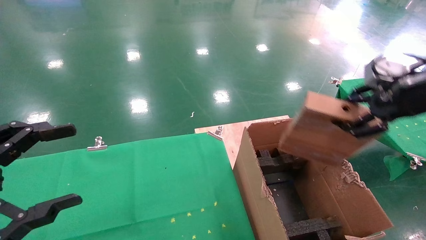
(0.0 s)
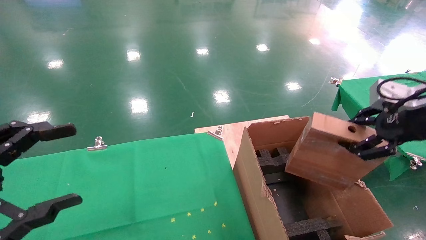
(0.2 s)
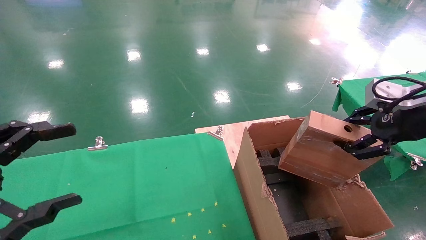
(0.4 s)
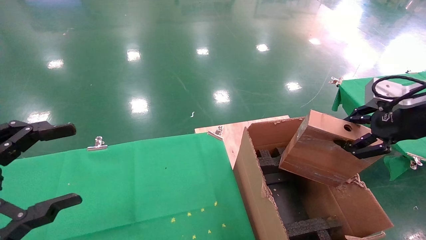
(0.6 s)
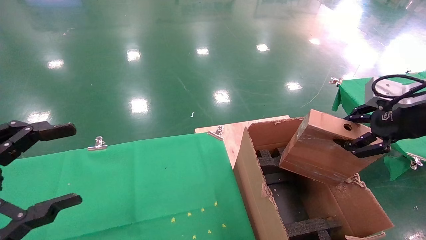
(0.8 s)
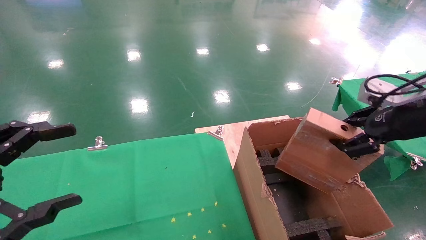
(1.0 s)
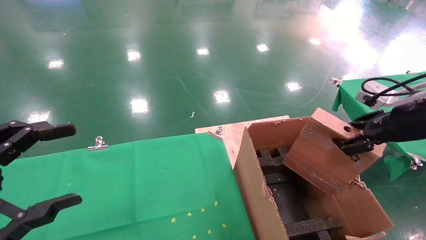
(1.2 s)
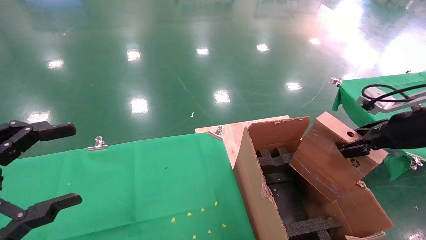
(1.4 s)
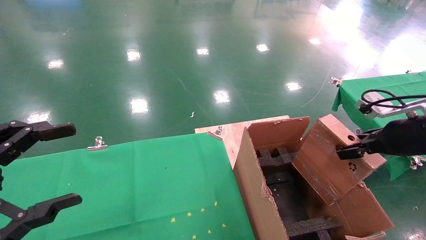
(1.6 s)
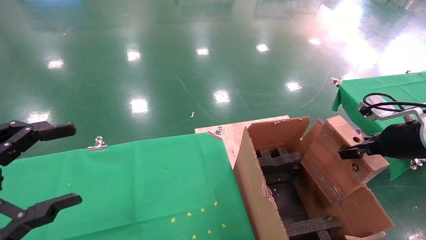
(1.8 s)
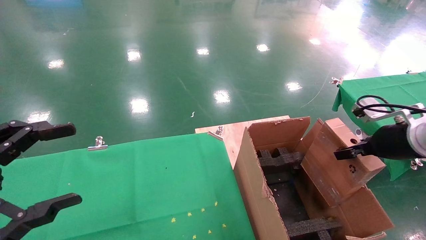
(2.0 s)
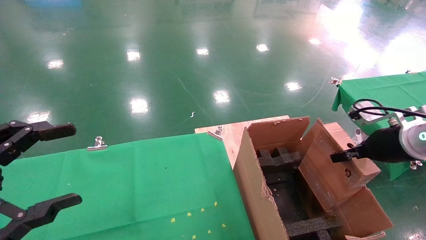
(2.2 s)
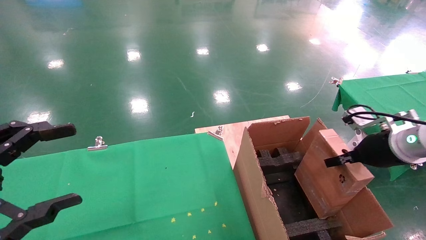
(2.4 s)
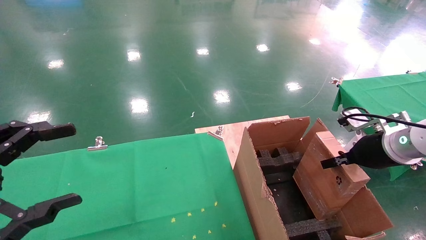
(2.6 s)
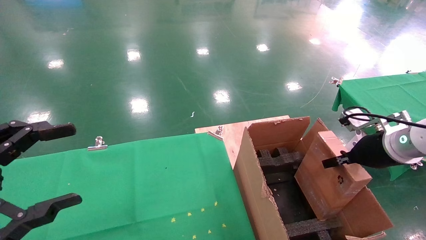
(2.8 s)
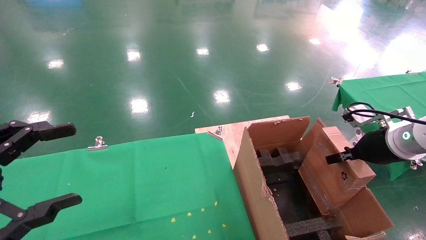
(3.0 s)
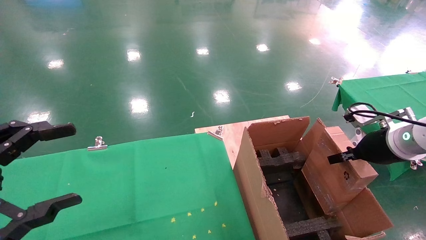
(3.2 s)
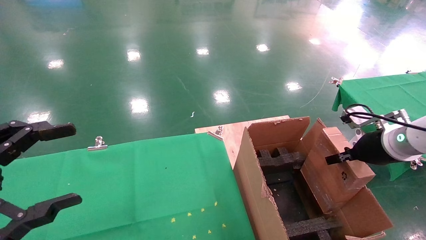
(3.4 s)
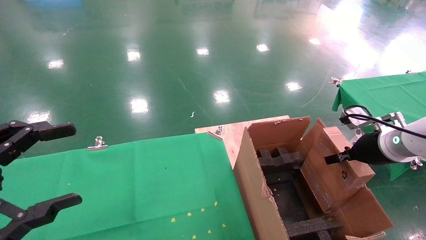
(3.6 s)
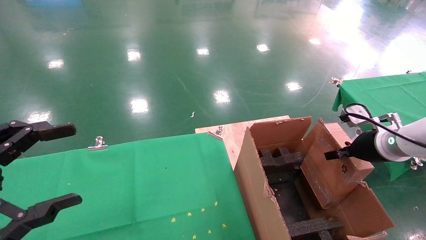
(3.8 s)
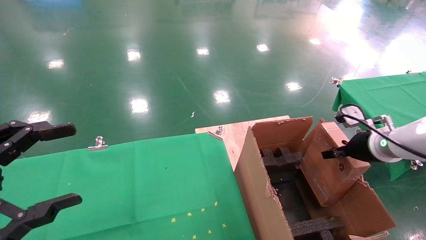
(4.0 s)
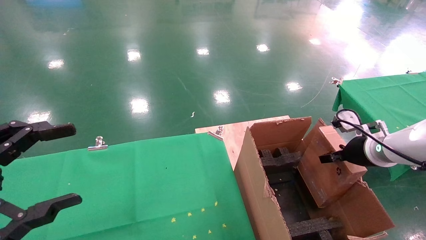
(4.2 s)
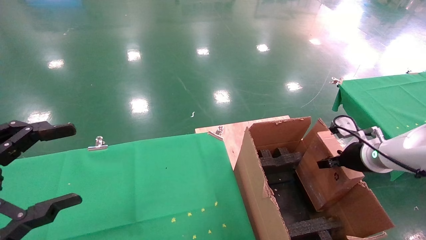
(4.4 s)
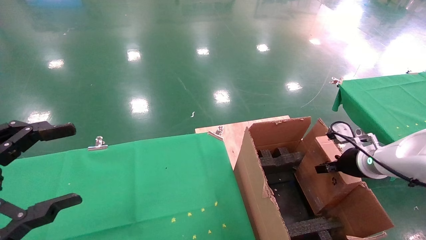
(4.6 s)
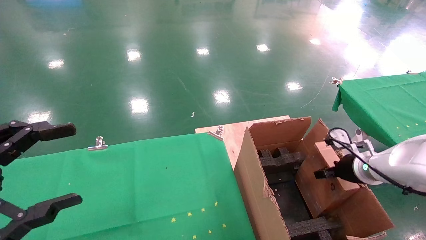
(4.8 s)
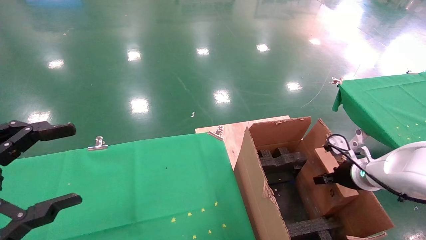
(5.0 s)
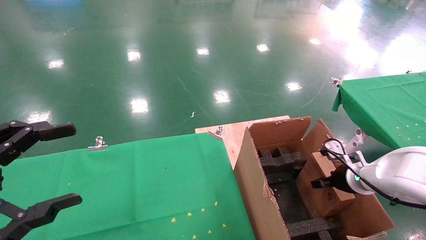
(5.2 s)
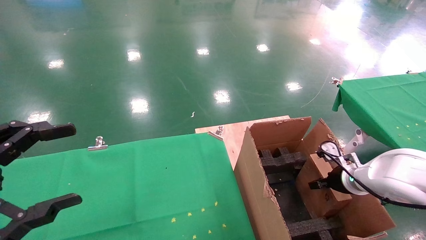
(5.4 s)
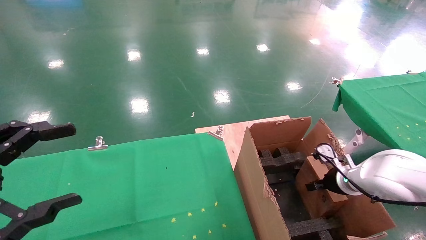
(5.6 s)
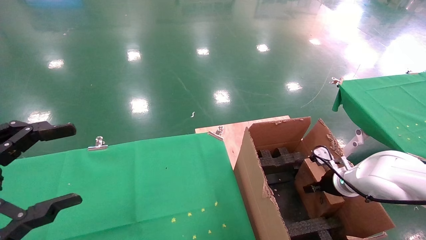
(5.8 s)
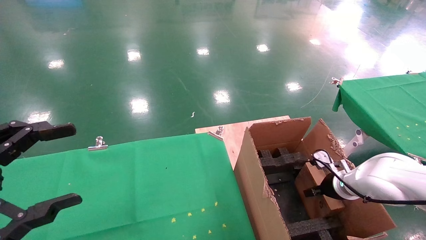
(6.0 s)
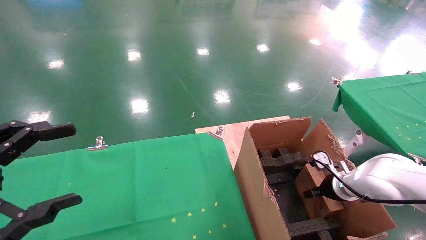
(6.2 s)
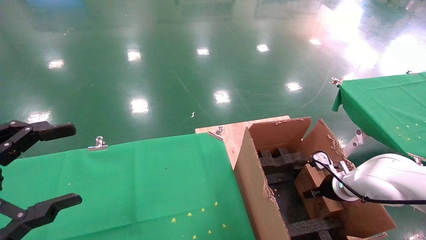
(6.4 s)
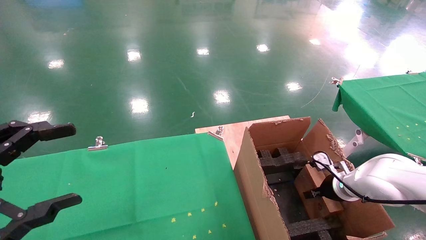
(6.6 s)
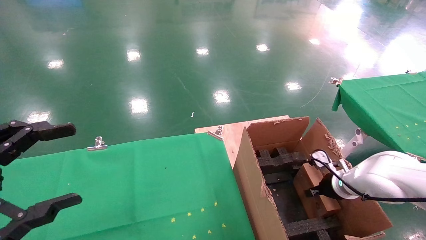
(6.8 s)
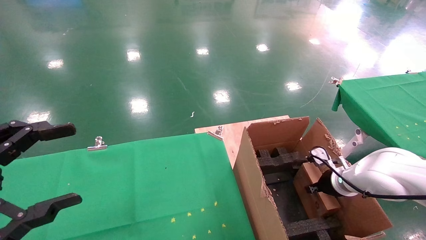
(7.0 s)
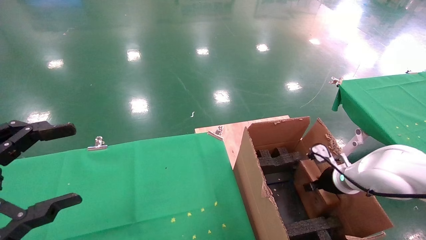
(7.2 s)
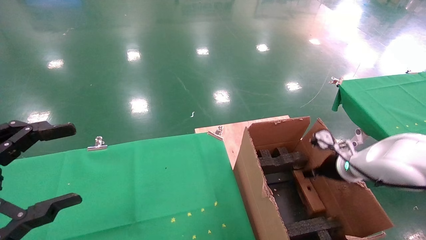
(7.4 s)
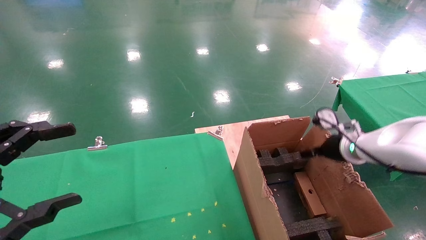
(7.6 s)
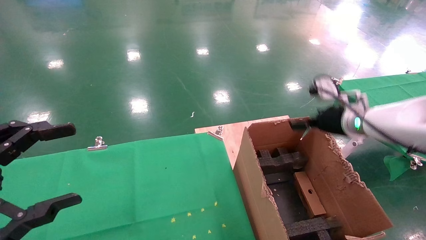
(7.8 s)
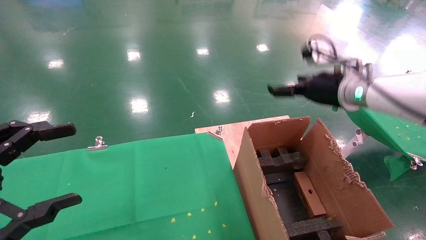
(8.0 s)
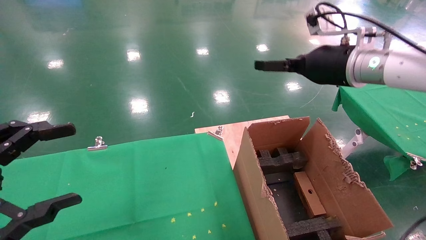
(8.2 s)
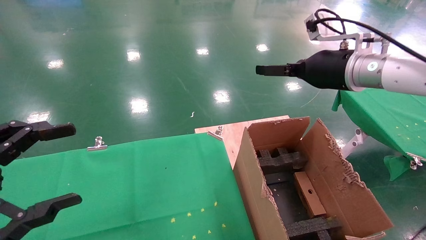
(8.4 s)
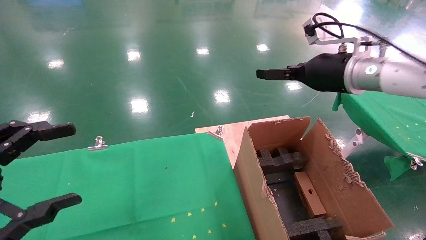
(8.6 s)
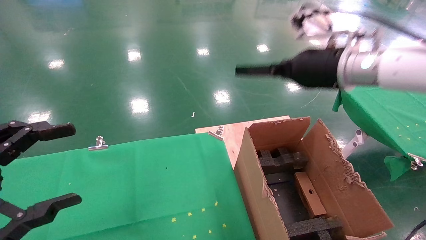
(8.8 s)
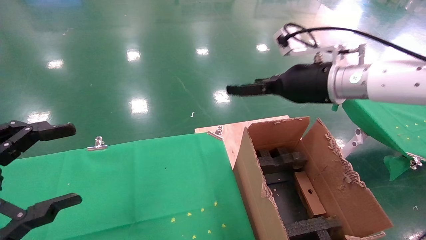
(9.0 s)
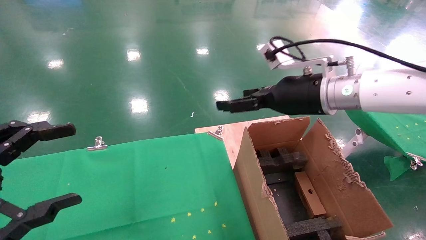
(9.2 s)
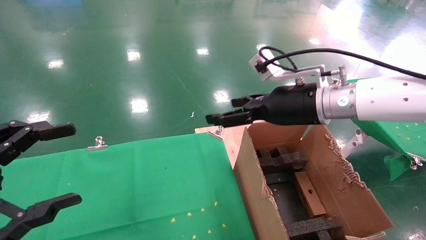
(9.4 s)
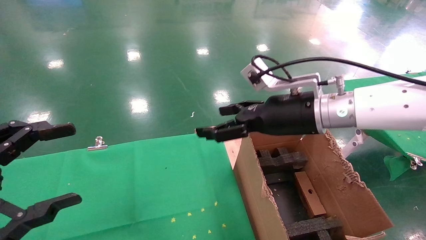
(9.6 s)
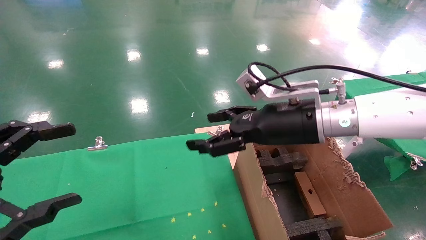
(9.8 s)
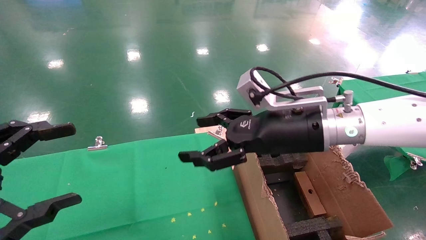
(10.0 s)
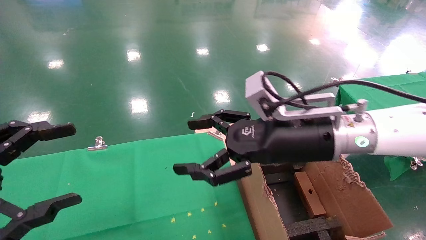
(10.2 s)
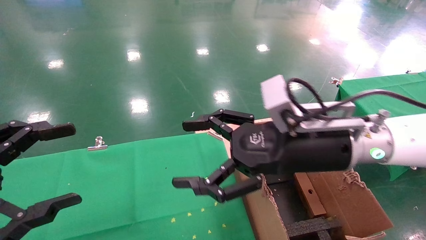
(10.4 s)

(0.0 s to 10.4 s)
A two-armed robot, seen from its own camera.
Task of the whole recording: using a robotic arm to pick up a cardboard box and palace it the carton.
Step, 0.0 s - 6.8 s: Place the mouse and the power cord paper box into the container.
0.0 s - 1.4 s: The right gripper is displaced downward by about 10 cm.
1.4 s - 3.0 s: The right gripper travels downward by about 5 cm.
3.0 s - 4.4 s: The right gripper is displaced downward by some 5 cm.
4.4 s - 6.0 s: The right gripper shifts roughly 10 cm downward.
6.0 s - 7.4 s: The right gripper goes roughly 10 cm upward, and opens up.
7.4 s - 9.0 s: The right gripper heads upward and to the left, covering roughly 25 cm.
9.0 s - 10.4 s: The right gripper moves backward and to the left, about 10 cm.
